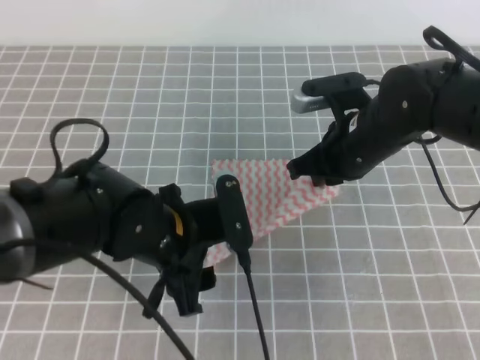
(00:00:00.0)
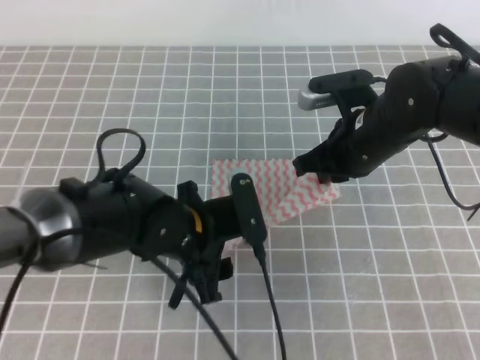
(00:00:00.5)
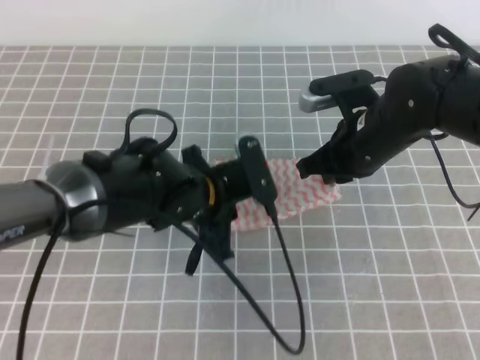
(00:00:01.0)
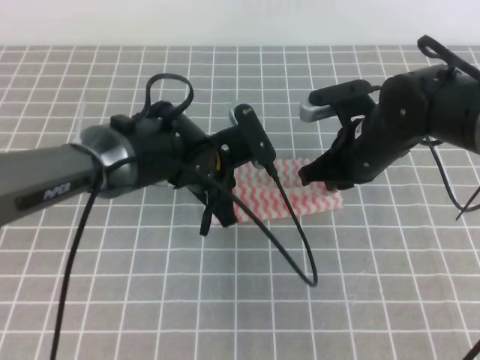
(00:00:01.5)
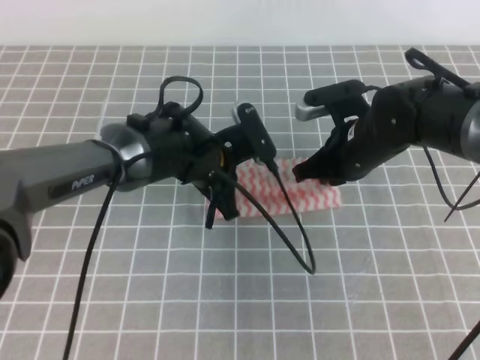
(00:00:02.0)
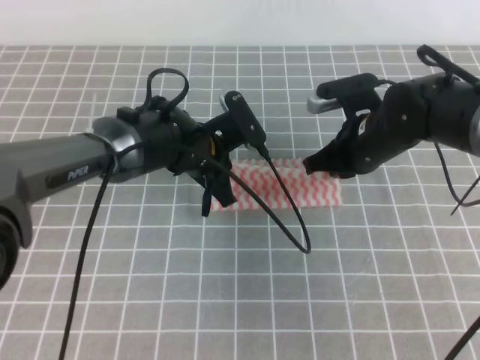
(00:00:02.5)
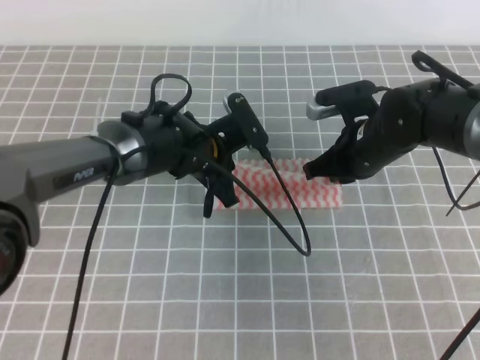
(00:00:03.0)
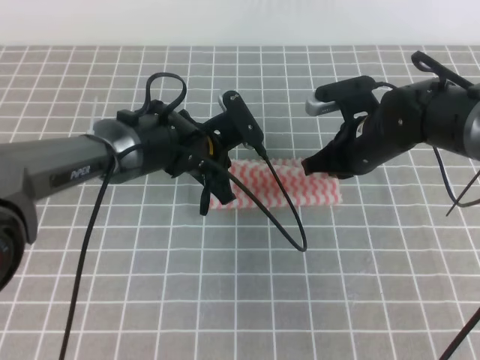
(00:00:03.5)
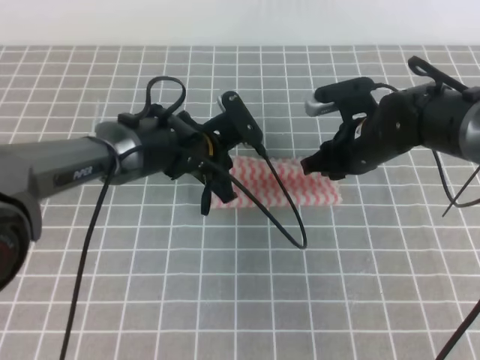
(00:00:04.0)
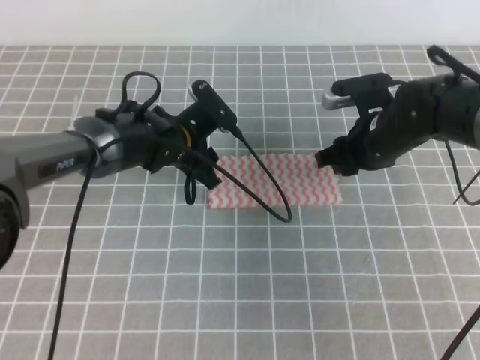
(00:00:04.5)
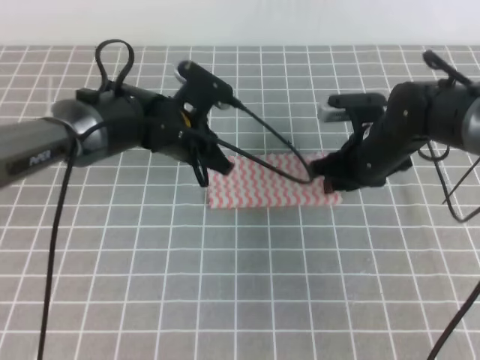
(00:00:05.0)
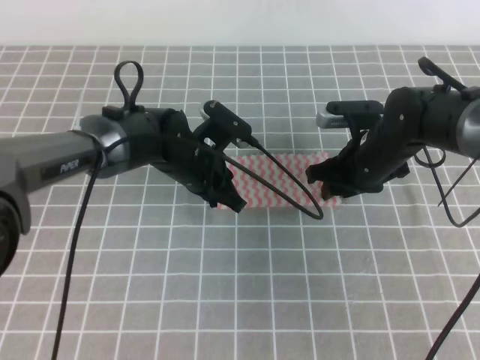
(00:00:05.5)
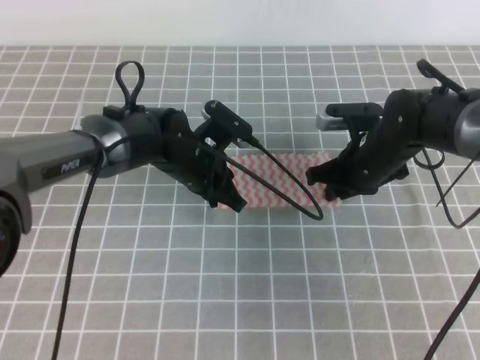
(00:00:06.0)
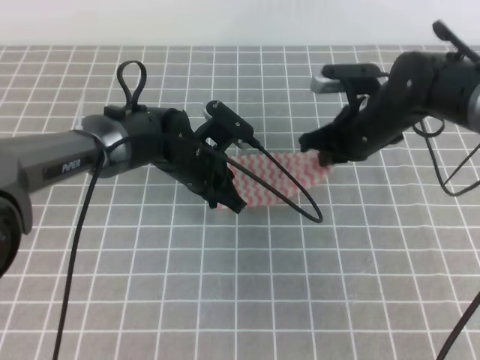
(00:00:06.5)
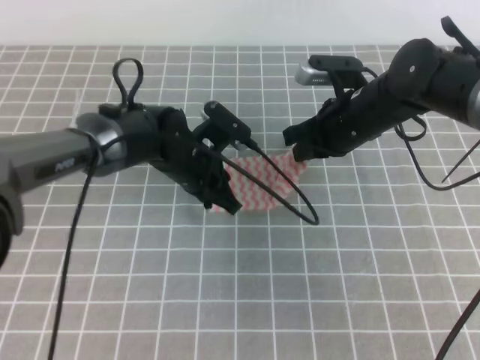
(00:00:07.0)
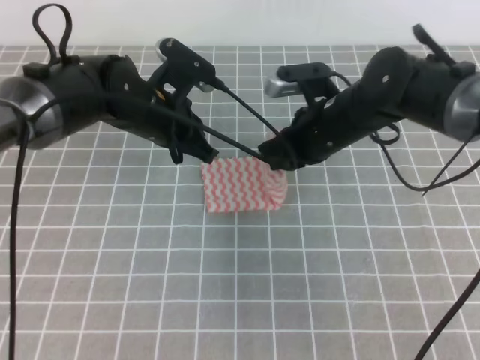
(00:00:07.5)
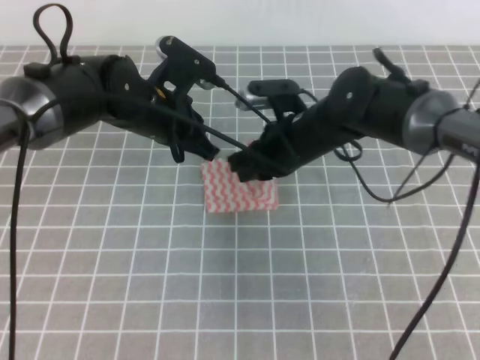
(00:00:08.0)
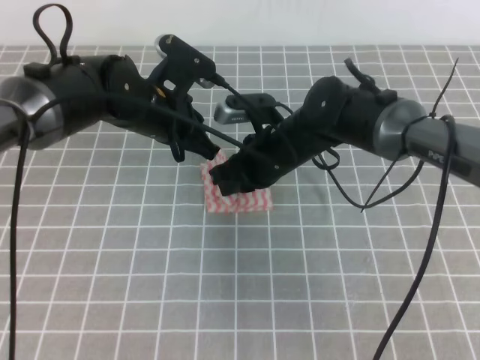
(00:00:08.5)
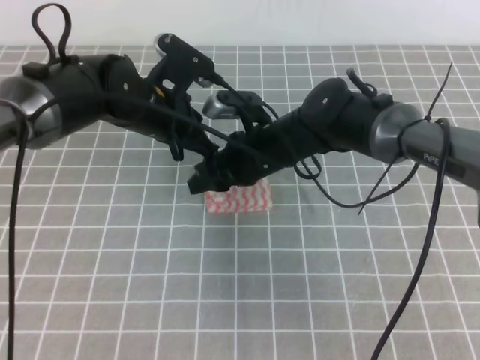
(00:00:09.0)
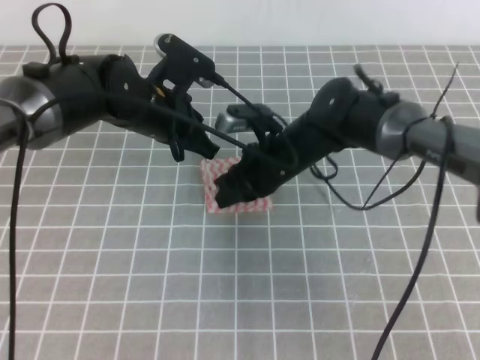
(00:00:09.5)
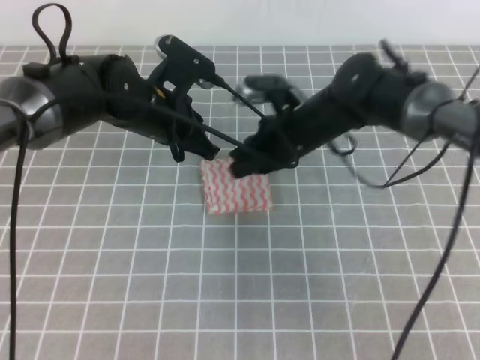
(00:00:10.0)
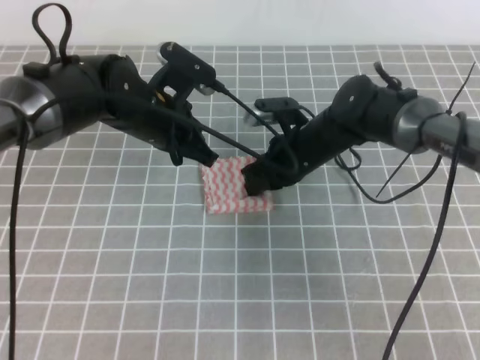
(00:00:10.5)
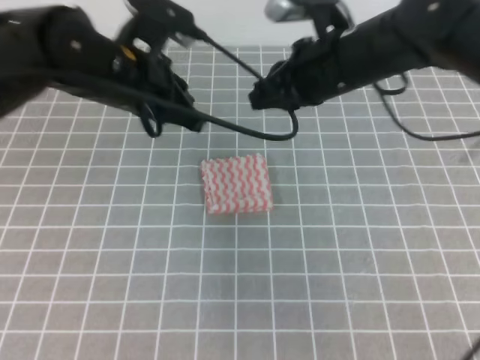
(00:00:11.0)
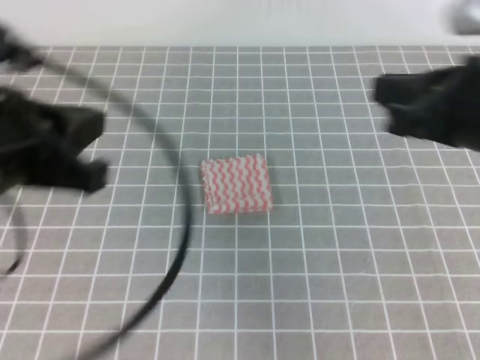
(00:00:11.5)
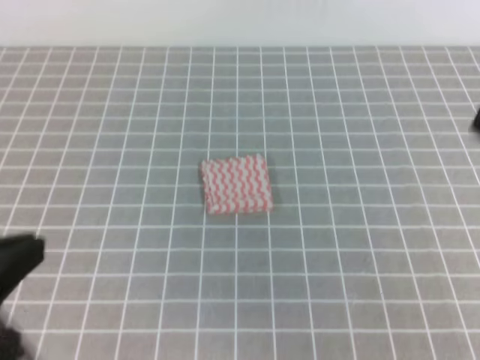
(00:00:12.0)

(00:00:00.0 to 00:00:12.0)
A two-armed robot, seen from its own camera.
Step, 00:00:00.0 - 00:00:01.5: Fold the towel from right to left with the right gripper.
Step, 00:00:02.0 - 00:00:02.5: Tidy up the towels.
00:00:00.0 - 00:00:02.0: The left gripper shifts roughly 10 cm forward, and closes.
00:00:02.0 - 00:00:04.0: The right gripper opens its fingers.
00:00:04.0 - 00:00:06.0: The left gripper opens, then closes once more; the right gripper opens, then closes once more.
00:00:06.0 - 00:00:08.0: The left gripper travels upward by roughly 10 cm. Meanwhile the right gripper shifts approximately 10 cm to the left, and closes up.
00:00:08.0 - 00:00:10.0: The right gripper opens, then closes again.
00:00:10.0 - 00:00:12.0: The left gripper travels backward and to the left by approximately 35 cm; the right gripper moves backward, upward and to the right, approximately 40 cm.

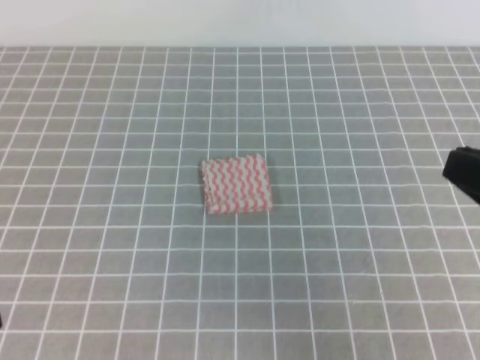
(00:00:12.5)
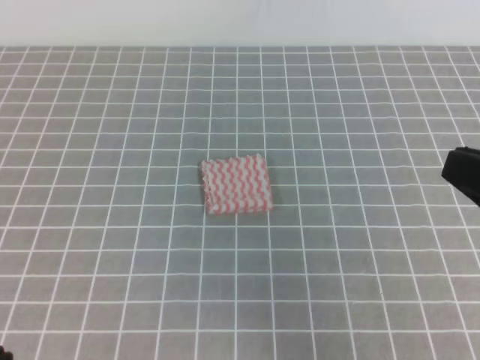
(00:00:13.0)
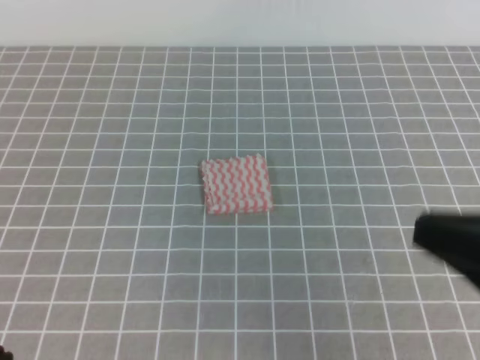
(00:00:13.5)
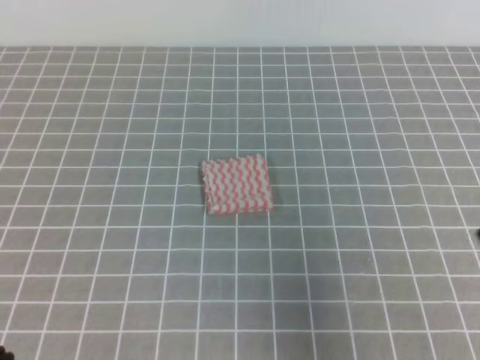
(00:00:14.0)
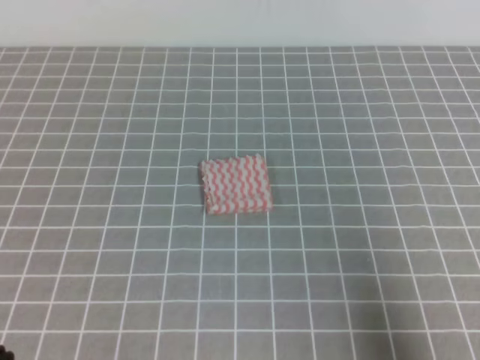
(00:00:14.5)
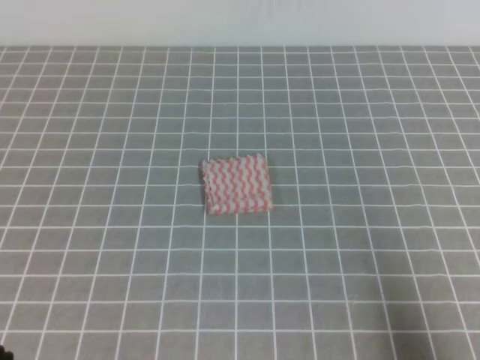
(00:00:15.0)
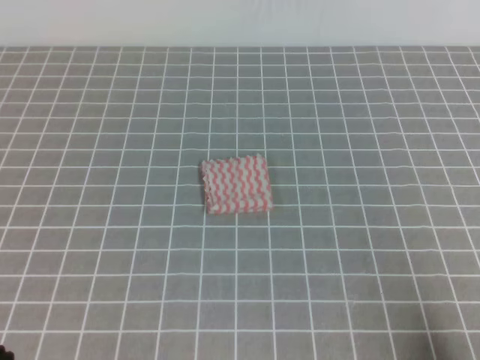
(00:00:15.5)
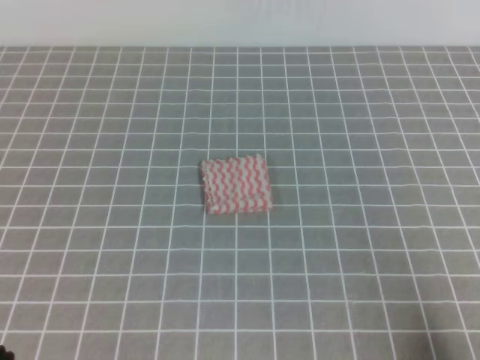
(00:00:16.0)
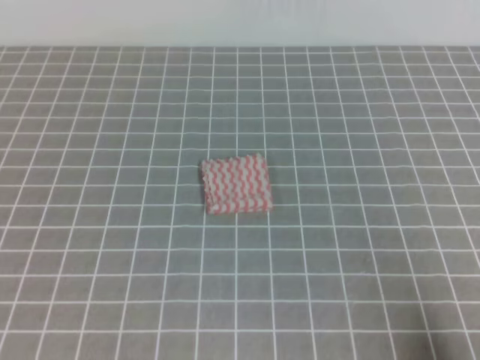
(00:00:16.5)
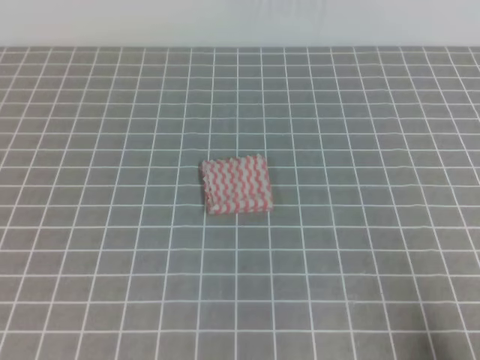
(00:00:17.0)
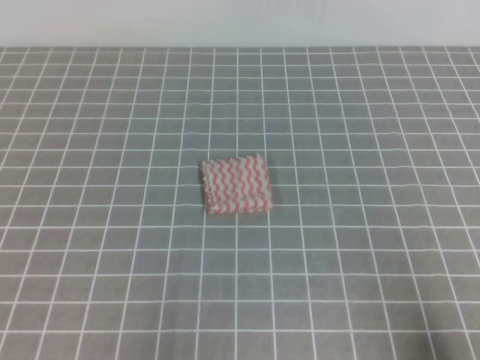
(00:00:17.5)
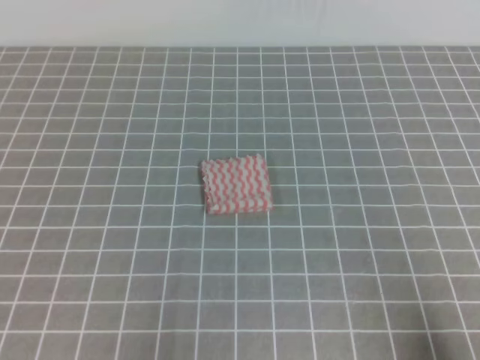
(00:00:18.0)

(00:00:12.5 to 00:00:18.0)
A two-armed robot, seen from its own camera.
00:00:12.5 - 00:00:14.5: The right gripper moves downward and to the right, approximately 10 cm.
00:00:14.5 - 00:00:16.0: The right gripper is displaced downward by approximately 10 cm.
